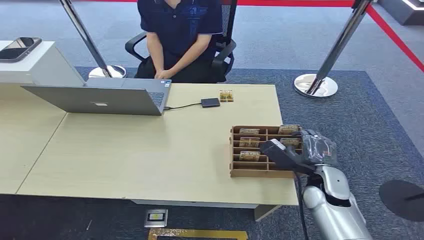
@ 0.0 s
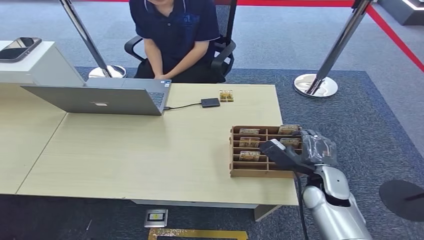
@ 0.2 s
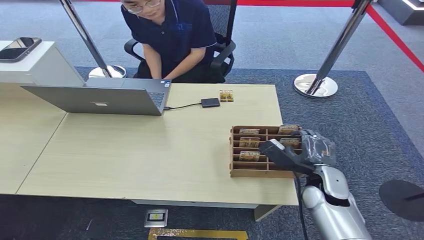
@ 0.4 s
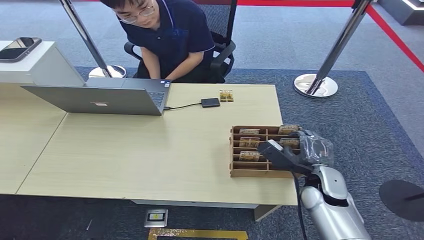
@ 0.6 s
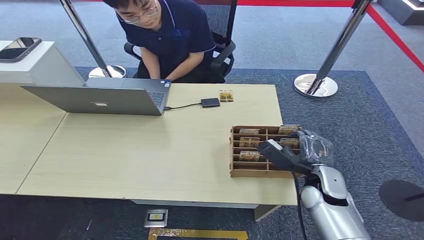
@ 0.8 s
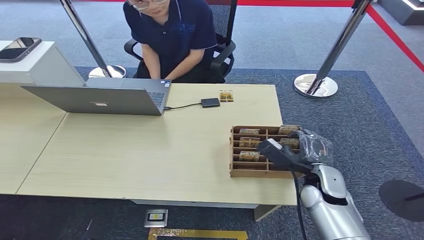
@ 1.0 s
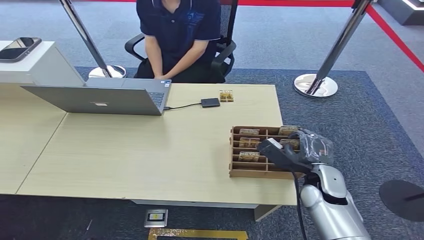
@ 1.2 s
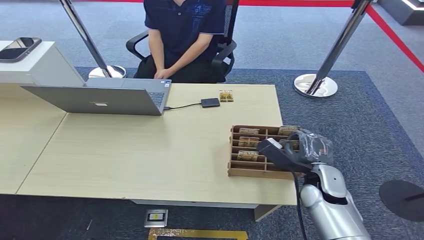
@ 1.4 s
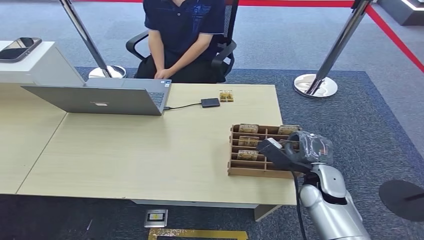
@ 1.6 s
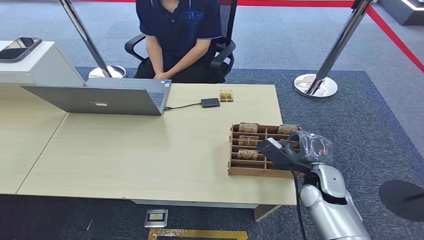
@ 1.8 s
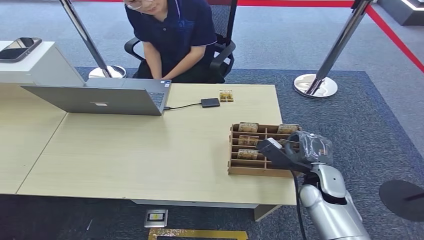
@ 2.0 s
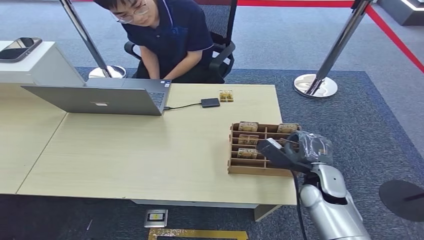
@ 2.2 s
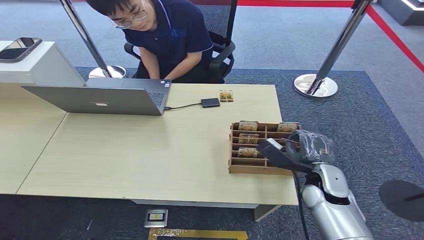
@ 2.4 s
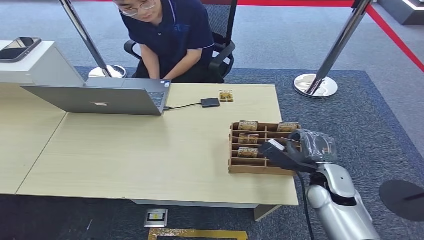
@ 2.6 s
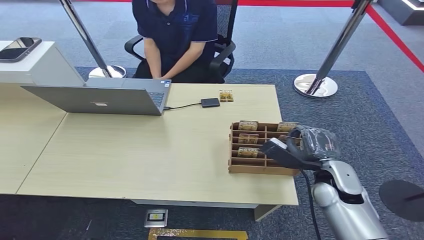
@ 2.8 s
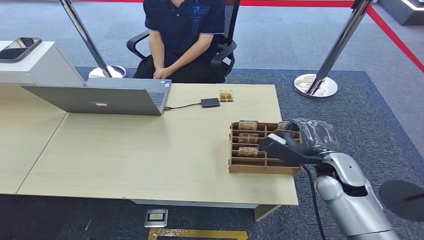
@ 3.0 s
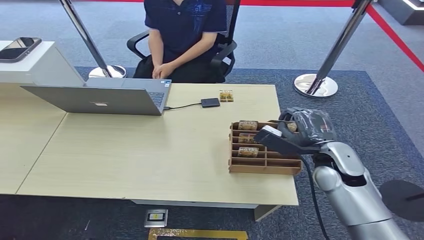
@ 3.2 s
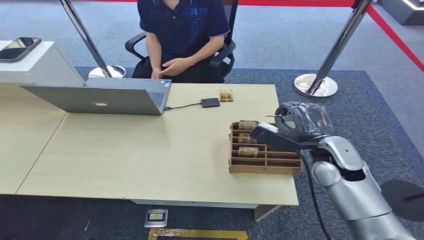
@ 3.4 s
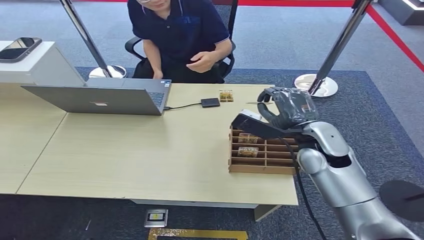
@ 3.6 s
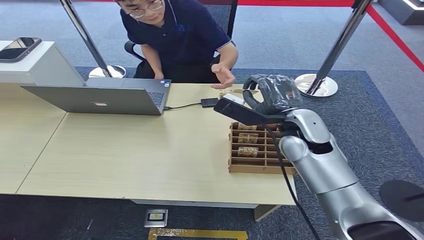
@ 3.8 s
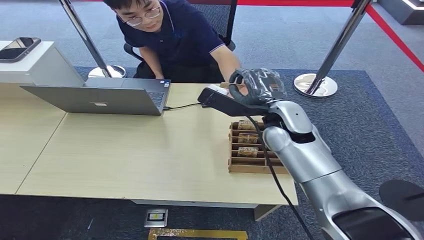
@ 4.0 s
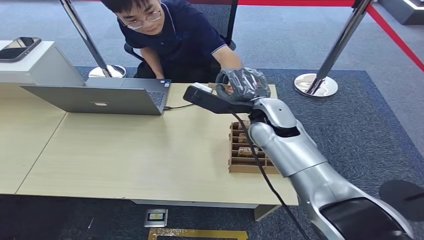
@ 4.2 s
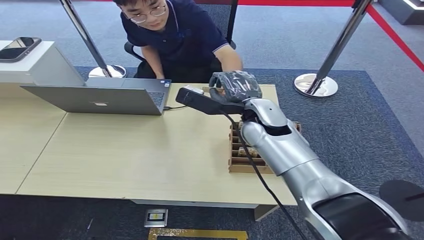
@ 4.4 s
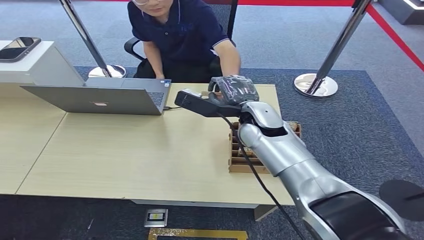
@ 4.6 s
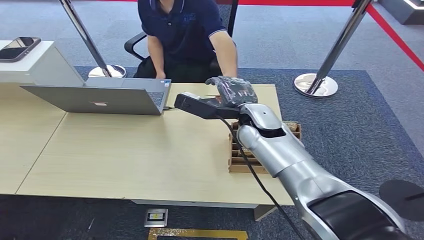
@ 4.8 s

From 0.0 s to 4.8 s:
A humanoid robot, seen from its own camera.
Step, from 0.0 s to 3.0 s: Pick up the room card from the card holder.
Step, from 3.4 s to 4.8 s: Hand the room card to the target.
From 1.6 s to 3.2 s: The right hand is displaced upward by approximately 5 cm.
From 3.2 s to 4.8 s: The right hand heads to the left, forward and upward, covering about 20 cm.
